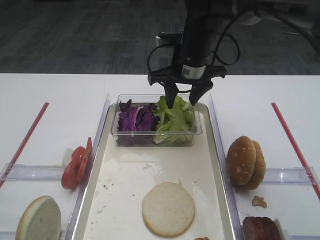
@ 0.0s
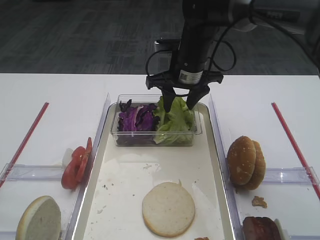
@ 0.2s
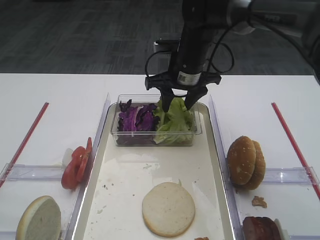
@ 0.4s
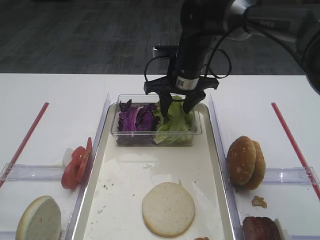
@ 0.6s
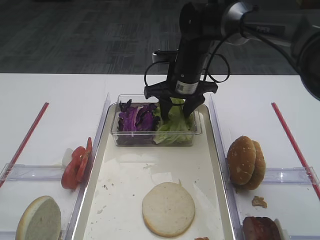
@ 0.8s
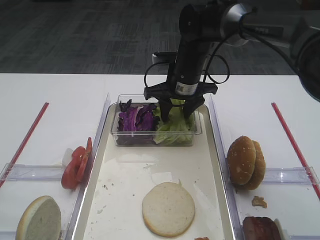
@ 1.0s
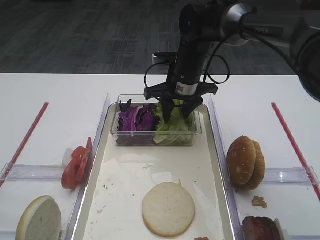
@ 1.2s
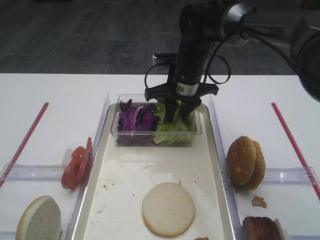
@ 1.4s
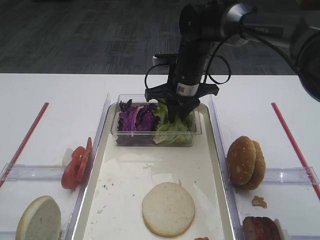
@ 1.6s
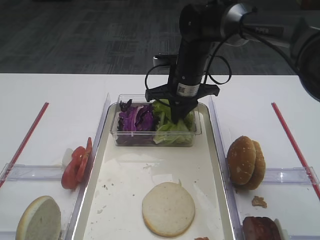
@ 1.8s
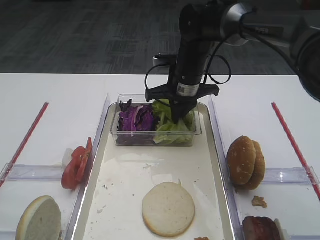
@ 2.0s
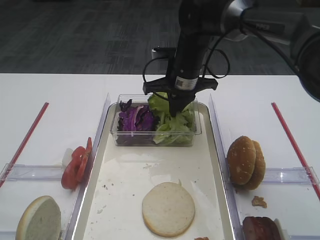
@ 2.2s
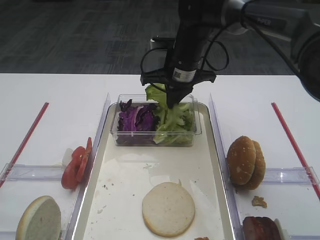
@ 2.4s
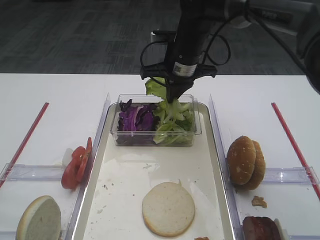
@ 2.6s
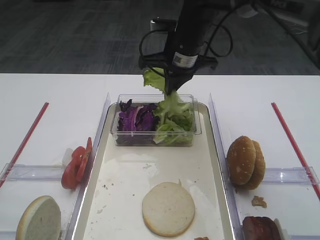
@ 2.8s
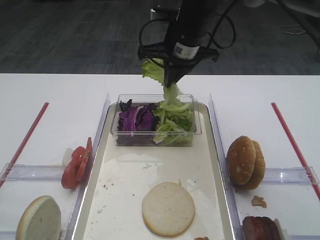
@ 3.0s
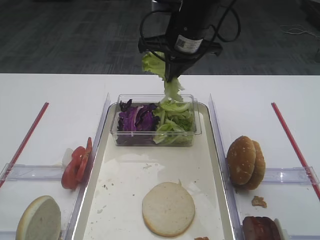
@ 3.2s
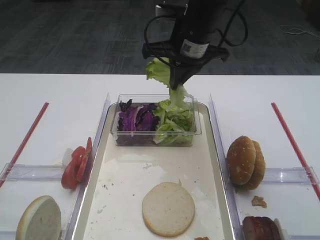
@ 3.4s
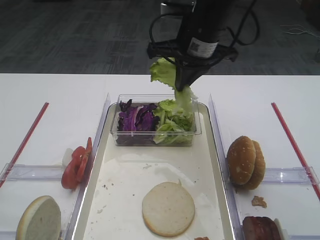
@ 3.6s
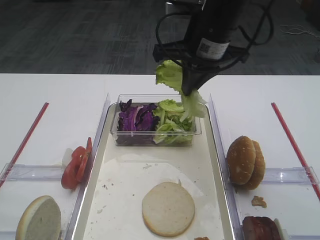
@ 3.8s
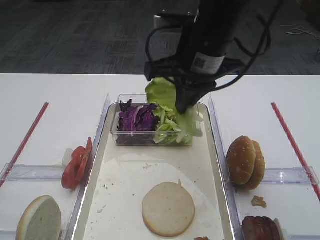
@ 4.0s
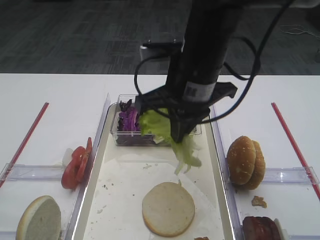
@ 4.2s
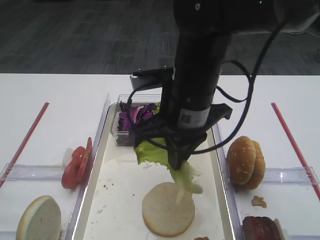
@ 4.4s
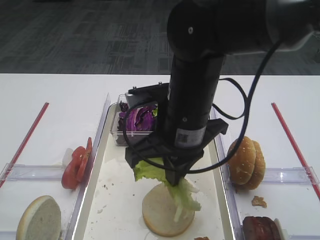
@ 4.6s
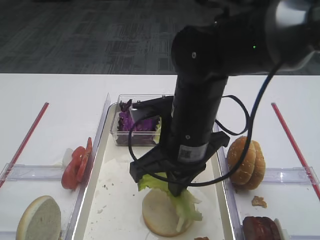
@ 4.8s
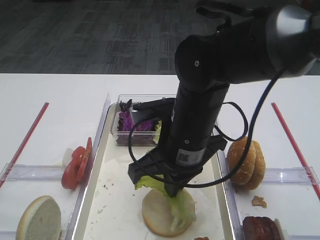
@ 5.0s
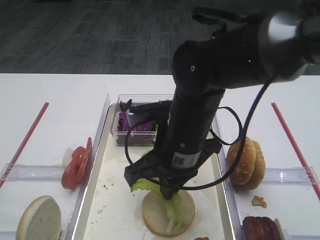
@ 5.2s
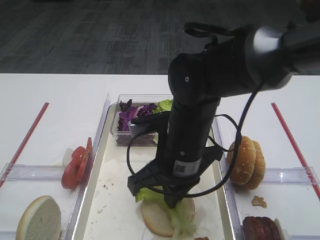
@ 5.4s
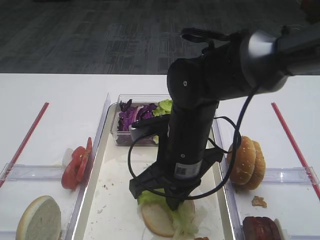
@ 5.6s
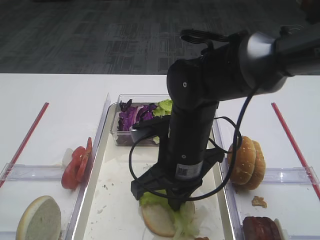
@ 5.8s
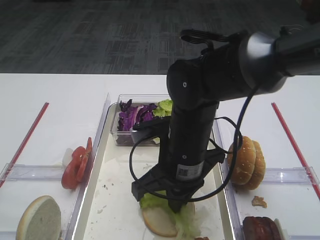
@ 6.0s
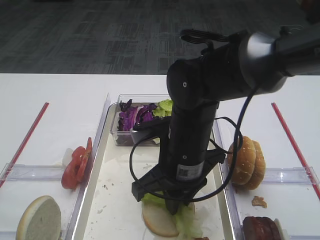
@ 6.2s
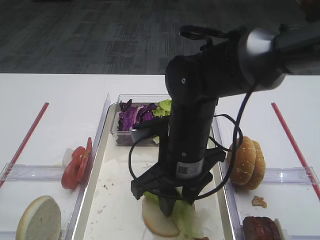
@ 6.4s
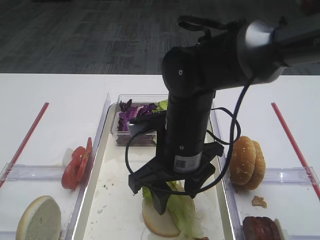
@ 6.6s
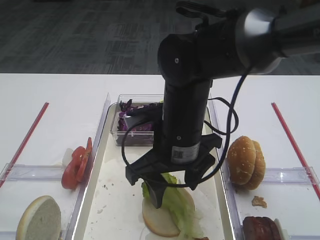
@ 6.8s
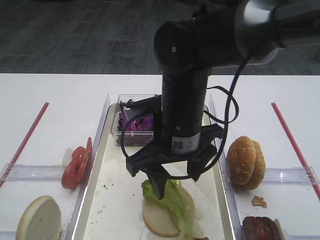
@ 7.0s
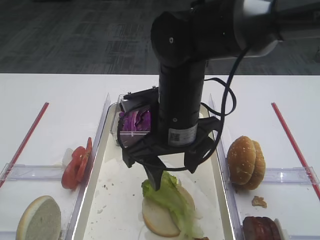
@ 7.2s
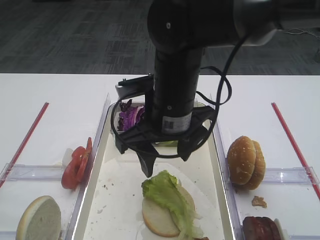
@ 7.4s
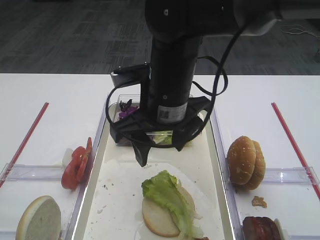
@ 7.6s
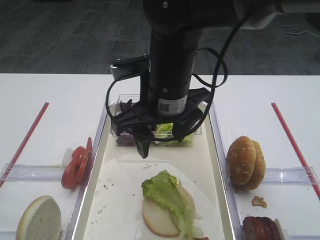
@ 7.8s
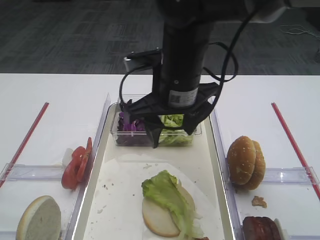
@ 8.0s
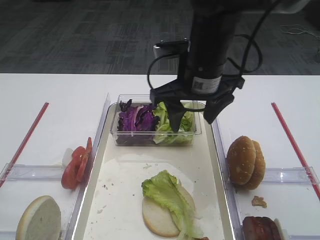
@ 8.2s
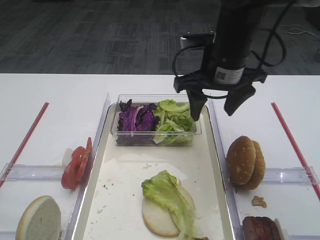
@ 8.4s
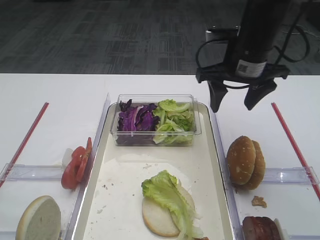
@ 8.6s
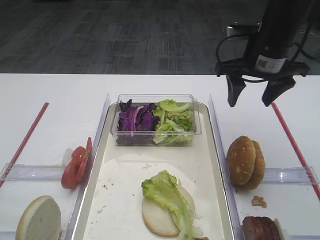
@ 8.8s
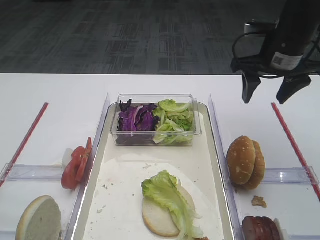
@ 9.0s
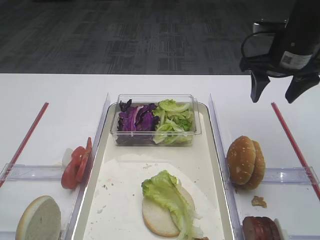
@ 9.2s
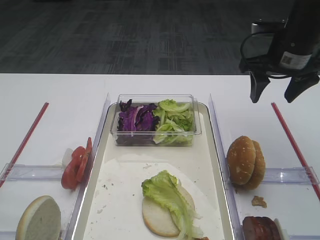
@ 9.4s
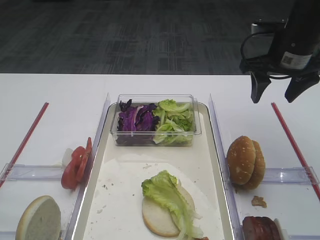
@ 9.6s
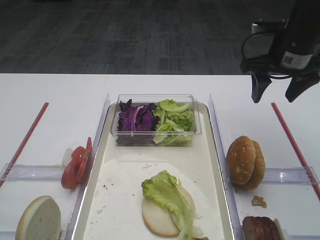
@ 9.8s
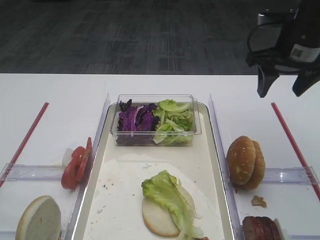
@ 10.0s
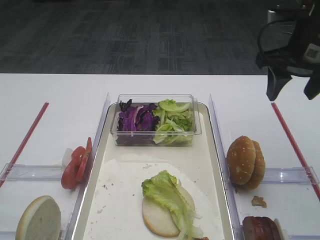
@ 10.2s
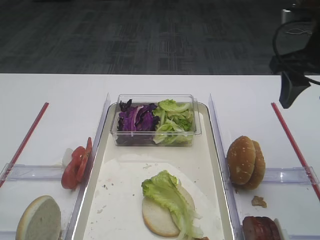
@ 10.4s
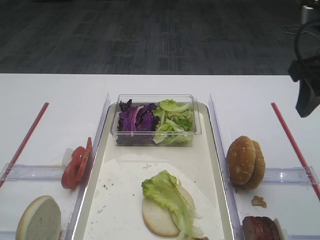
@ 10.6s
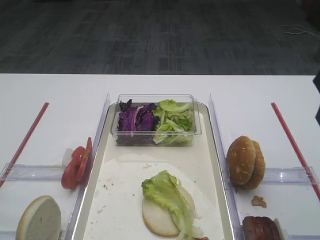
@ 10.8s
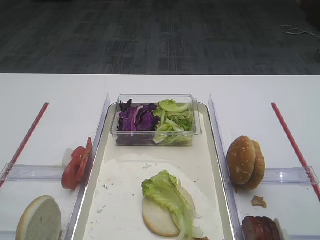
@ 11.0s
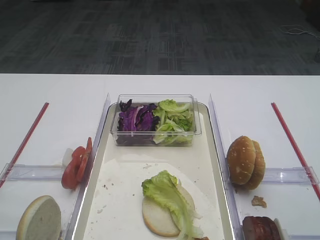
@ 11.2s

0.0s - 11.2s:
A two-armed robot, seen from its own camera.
Step, 0.0s - 2.8s: Pick up the lettuce leaf with the right gripper.
Step, 3.0s - 7.0s: Place the lettuce leaf on the bread slice with the right gripper.
0.0s - 1.6s: The right gripper closes up.
1.6s - 3.2s: The right gripper goes some 10 cm upward.
3.2s - 4.8s: The right gripper moves backward and downward, about 20 cm.
4.8s - 6.4s: The right gripper opens up.
6.4s - 8.0s: The right gripper travels upward and forward by approximately 10 cm, and opens.
8.0s - 9.6s: The right gripper goes approximately 20 cm to the right and forward.
9.6s - 11.2s: The right gripper goes roughly 25 cm backward.

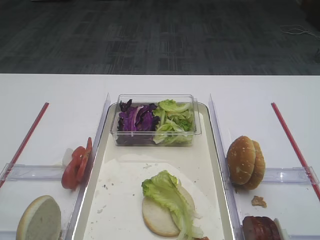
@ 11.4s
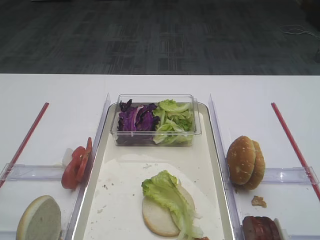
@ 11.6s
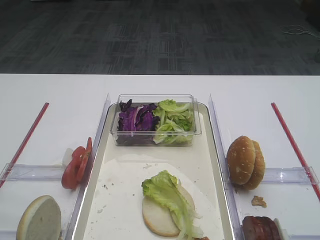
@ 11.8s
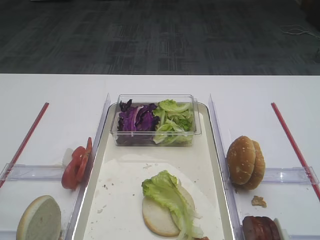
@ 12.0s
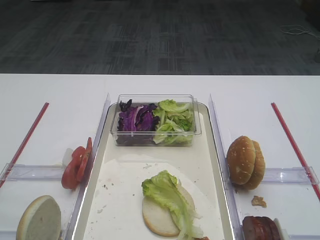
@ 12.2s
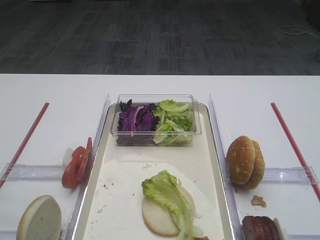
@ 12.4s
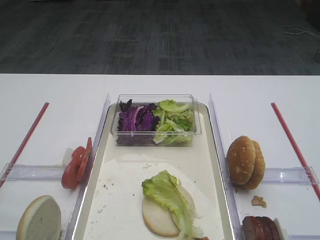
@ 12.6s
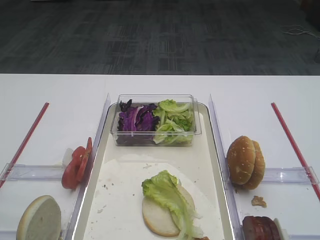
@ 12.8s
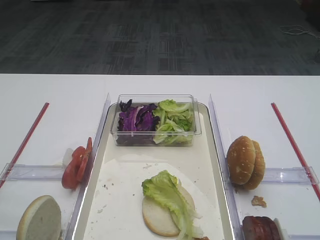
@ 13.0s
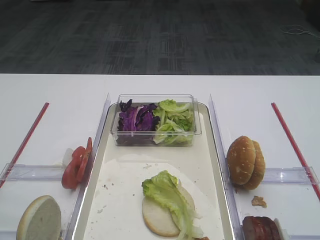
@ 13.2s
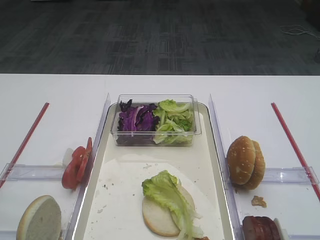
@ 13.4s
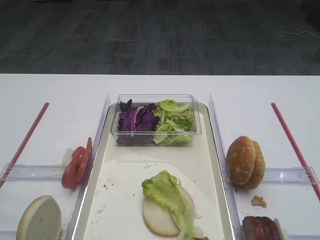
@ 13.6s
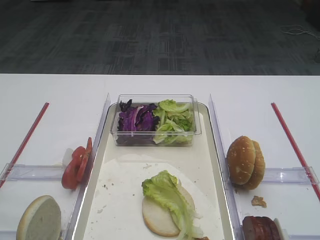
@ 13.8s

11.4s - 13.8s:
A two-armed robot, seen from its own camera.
12.6s - 13.8s: The two grippers keep their place.

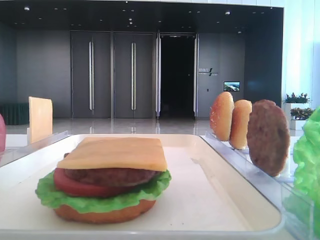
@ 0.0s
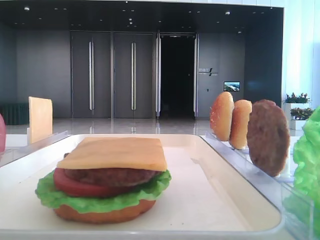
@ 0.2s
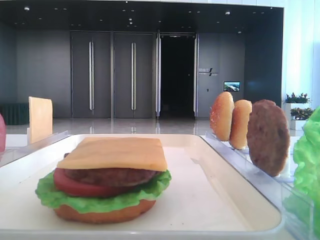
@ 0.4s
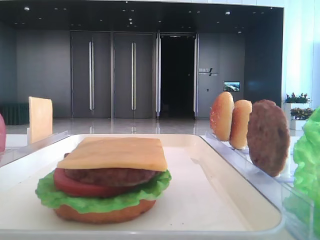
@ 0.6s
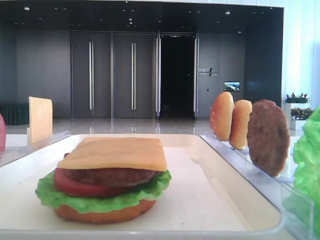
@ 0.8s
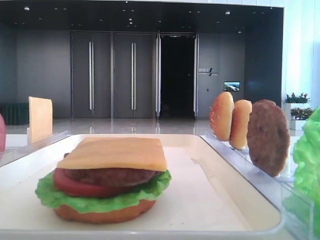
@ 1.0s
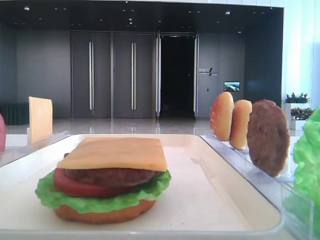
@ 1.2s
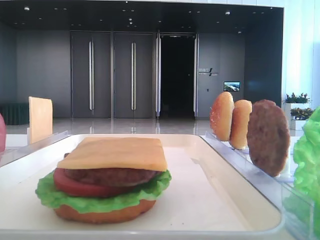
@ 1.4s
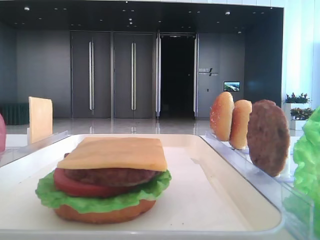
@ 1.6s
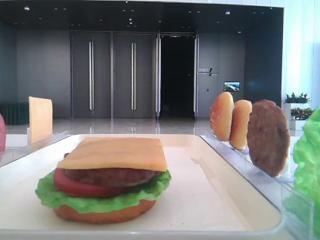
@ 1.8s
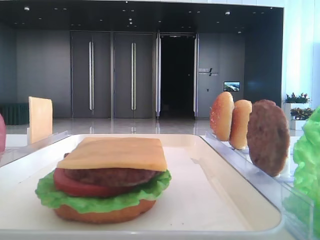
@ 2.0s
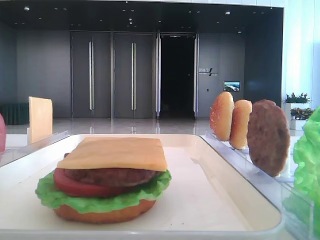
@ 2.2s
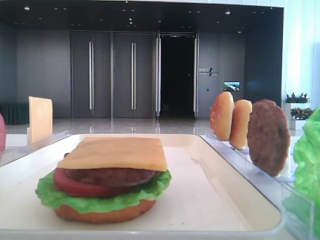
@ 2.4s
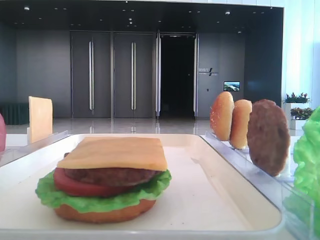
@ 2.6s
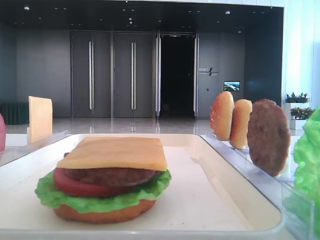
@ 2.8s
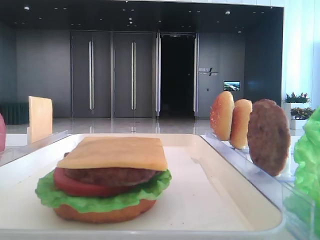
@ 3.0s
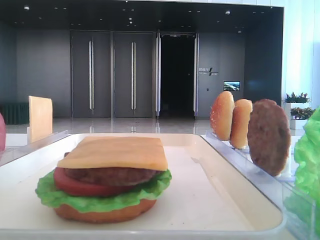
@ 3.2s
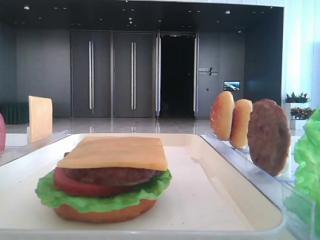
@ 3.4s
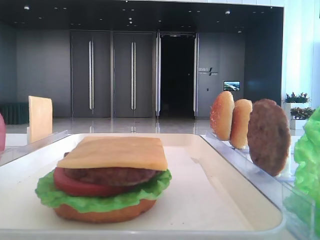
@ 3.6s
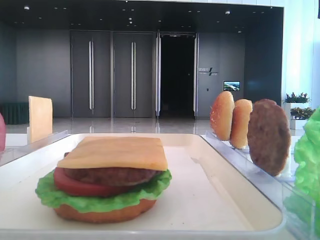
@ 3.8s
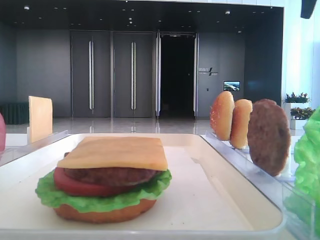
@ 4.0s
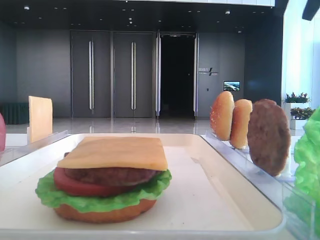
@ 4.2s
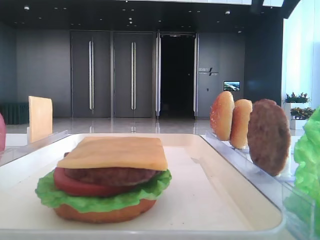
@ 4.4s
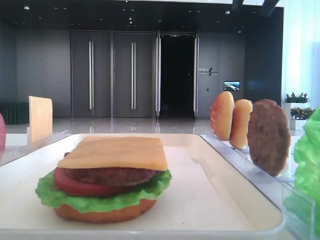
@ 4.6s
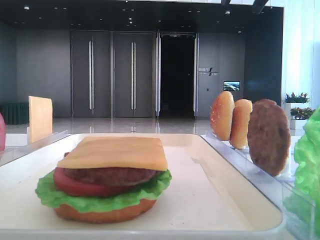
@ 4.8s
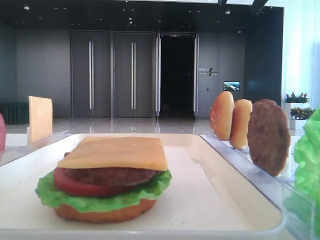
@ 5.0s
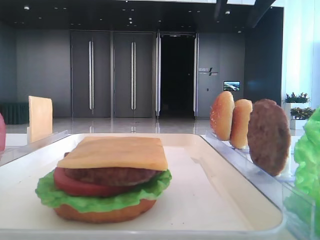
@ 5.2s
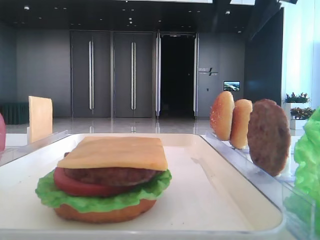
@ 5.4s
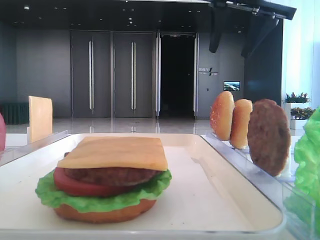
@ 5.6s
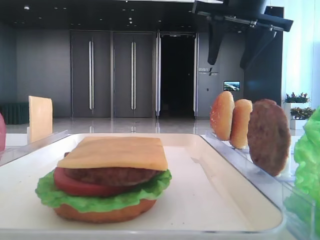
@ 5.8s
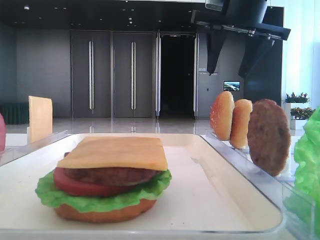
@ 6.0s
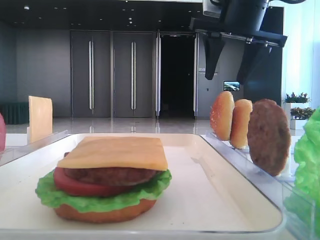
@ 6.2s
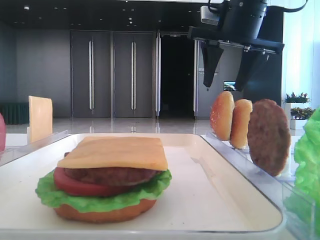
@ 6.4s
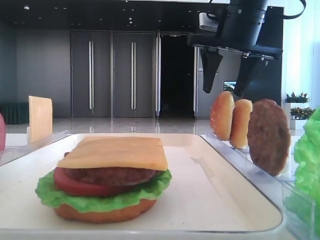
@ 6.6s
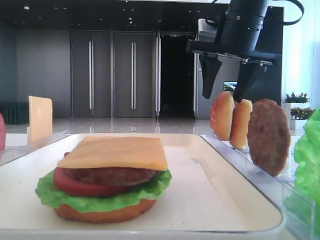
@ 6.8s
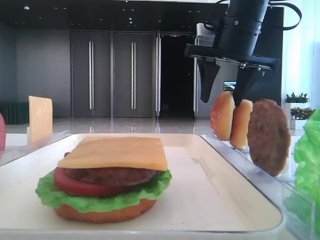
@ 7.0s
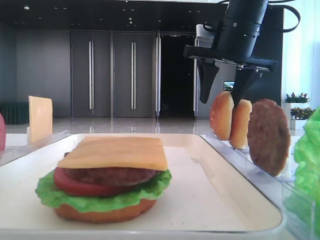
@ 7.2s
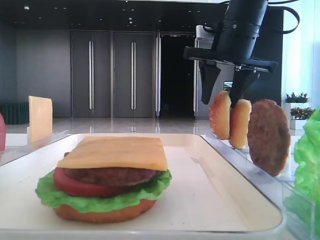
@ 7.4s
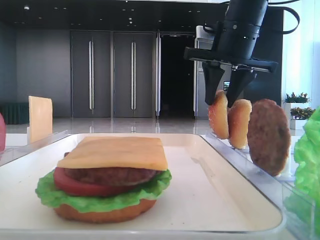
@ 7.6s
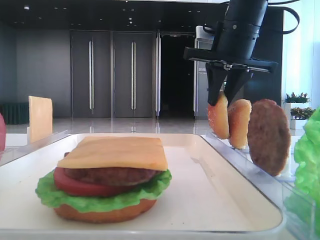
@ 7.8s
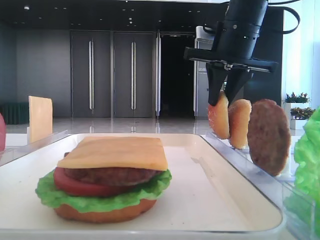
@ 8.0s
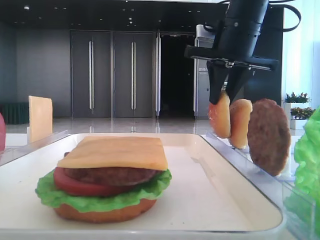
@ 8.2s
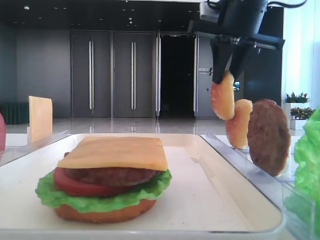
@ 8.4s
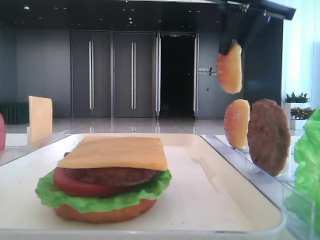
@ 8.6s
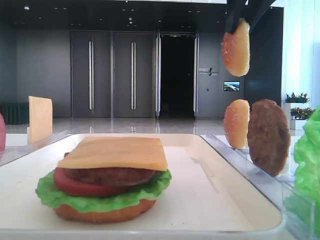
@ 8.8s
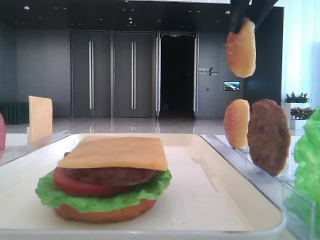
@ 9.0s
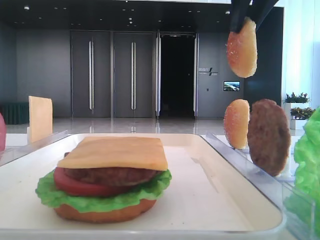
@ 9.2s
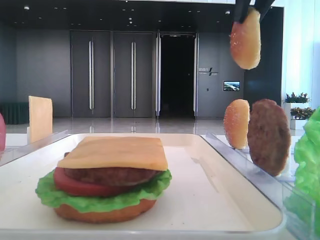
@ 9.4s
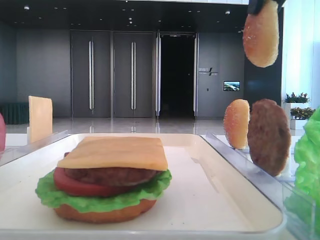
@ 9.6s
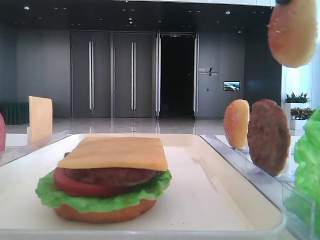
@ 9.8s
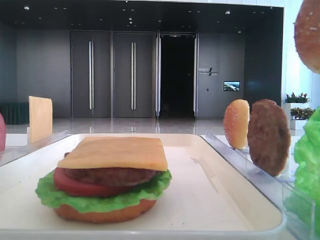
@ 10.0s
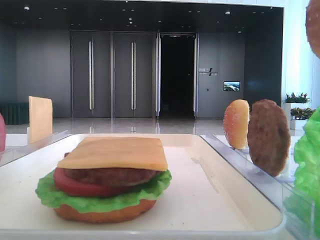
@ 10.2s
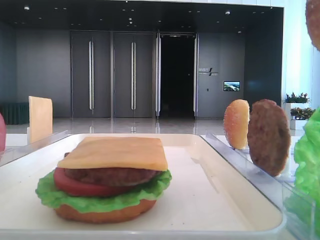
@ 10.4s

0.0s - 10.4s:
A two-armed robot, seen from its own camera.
Step, 0.0s - 8.0s: Pick up the top bread slice with the right hand.
1.4s - 3.0s: The right gripper shifts roughly 30 cm forward.
4.4s - 6.0s: The right gripper goes about 10 cm downward and to the left.
6.0s - 7.4s: The right gripper is displaced downward by approximately 5 cm.
7.4s - 9.0s: The right gripper shifts approximately 15 cm upward and backward, and closes up.
9.0s - 10.4s: The right gripper travels backward by approximately 20 cm.
